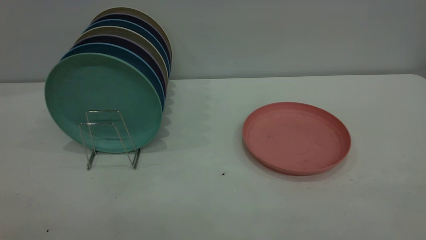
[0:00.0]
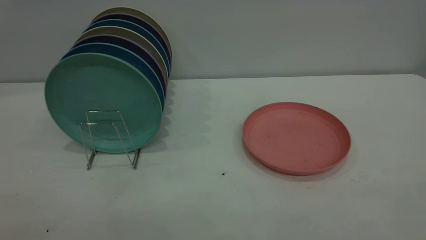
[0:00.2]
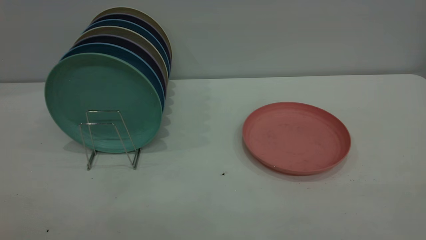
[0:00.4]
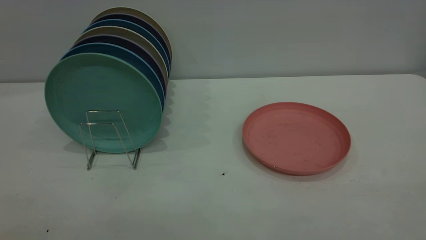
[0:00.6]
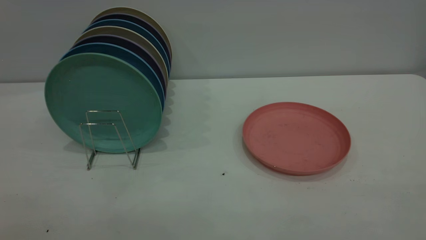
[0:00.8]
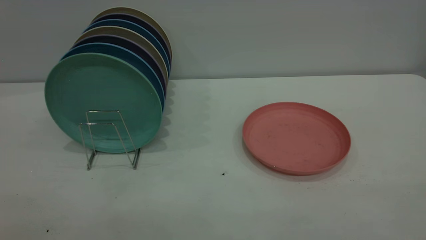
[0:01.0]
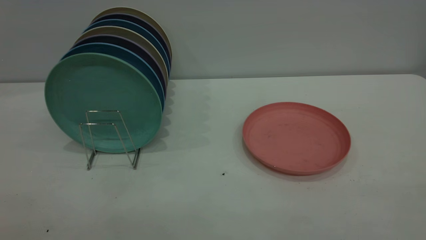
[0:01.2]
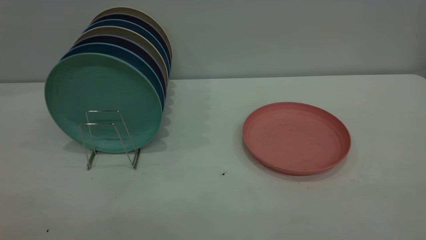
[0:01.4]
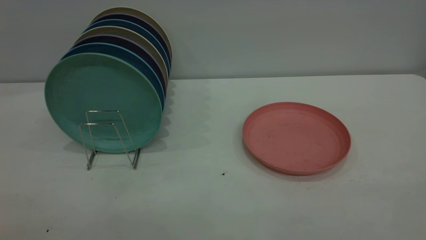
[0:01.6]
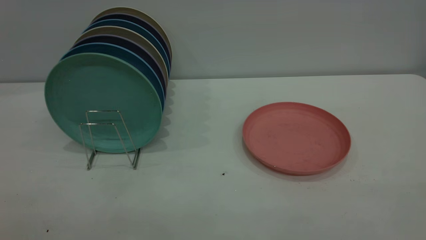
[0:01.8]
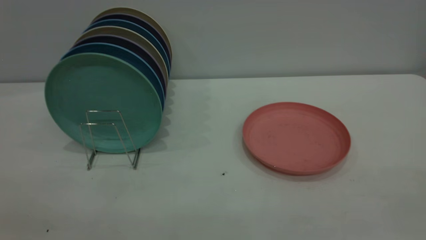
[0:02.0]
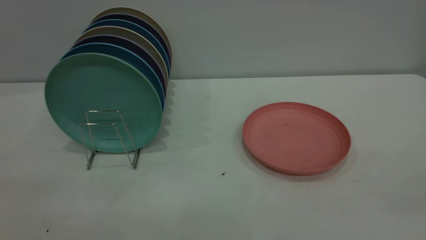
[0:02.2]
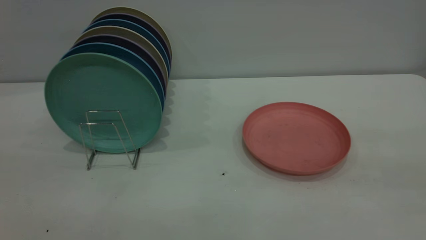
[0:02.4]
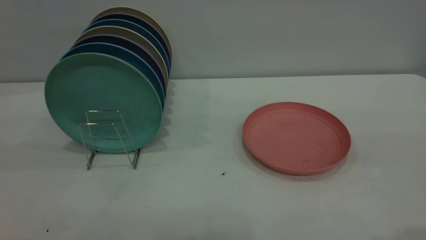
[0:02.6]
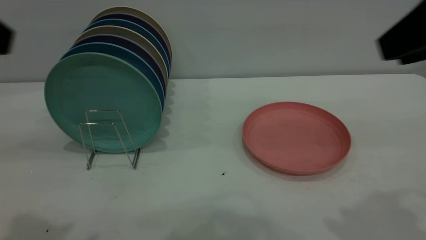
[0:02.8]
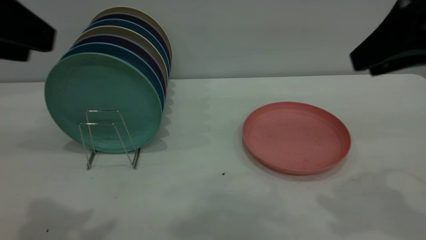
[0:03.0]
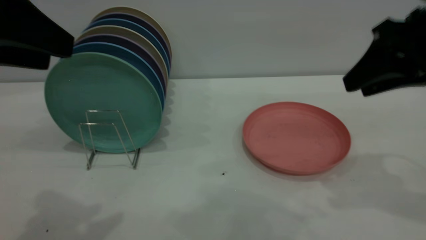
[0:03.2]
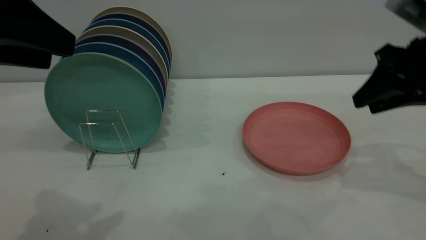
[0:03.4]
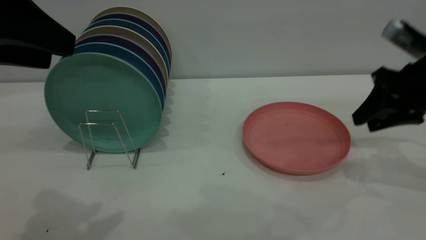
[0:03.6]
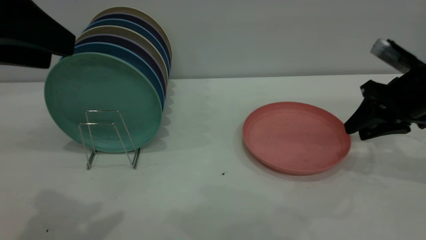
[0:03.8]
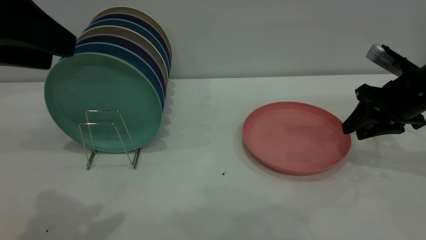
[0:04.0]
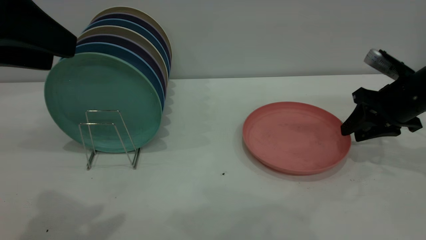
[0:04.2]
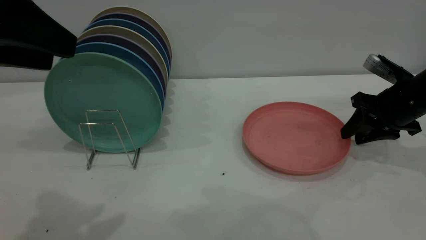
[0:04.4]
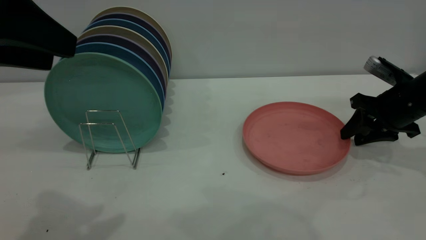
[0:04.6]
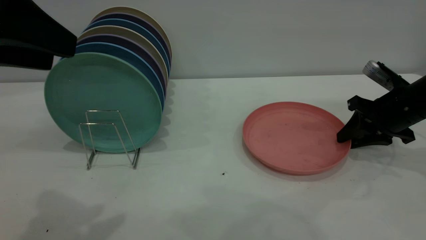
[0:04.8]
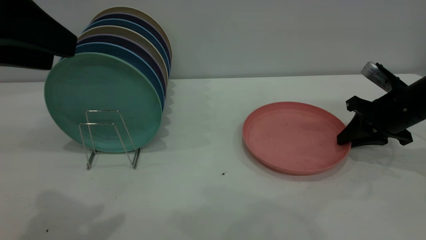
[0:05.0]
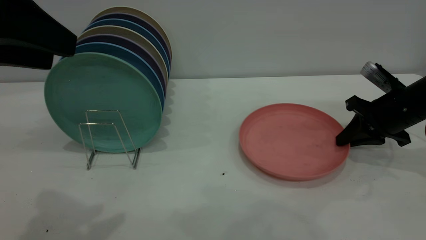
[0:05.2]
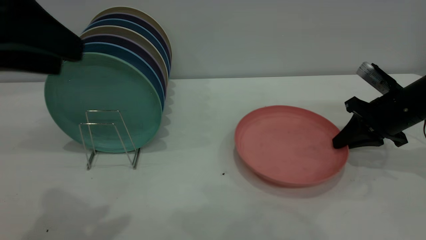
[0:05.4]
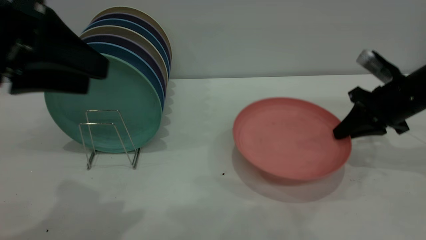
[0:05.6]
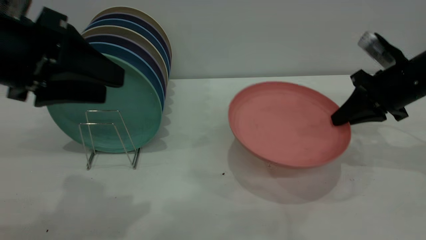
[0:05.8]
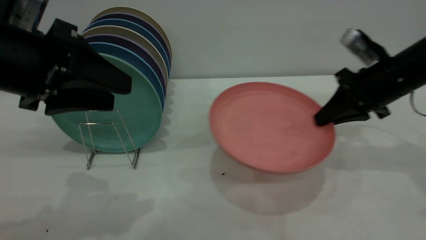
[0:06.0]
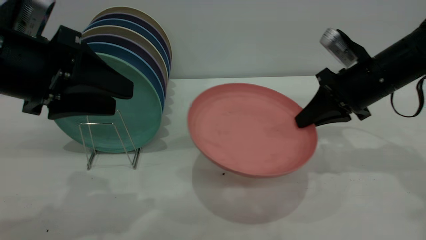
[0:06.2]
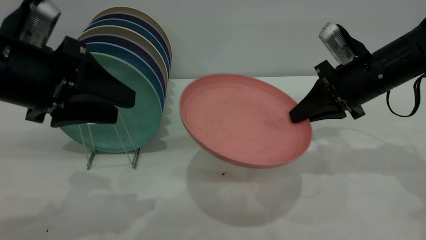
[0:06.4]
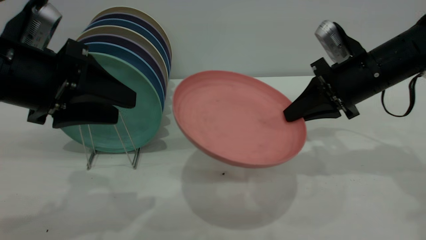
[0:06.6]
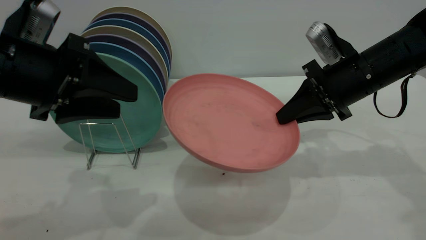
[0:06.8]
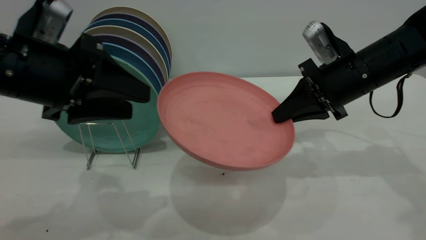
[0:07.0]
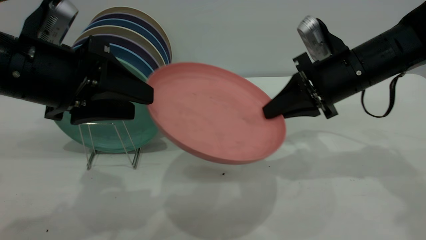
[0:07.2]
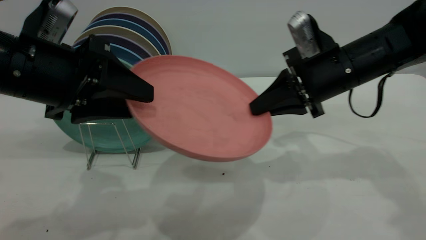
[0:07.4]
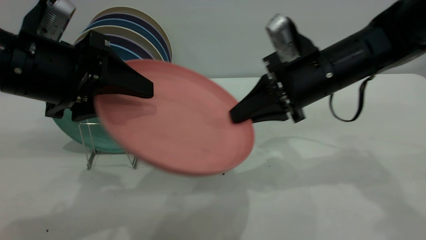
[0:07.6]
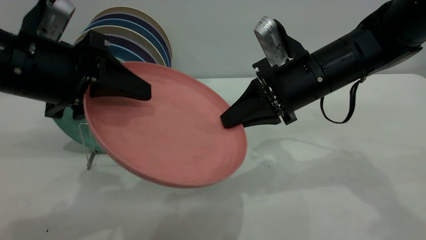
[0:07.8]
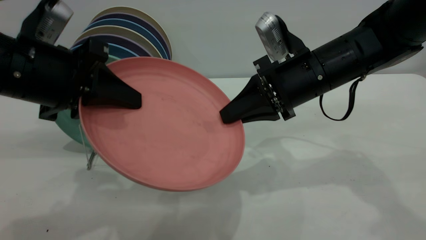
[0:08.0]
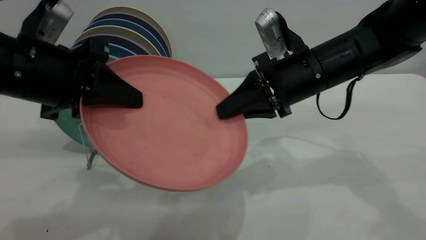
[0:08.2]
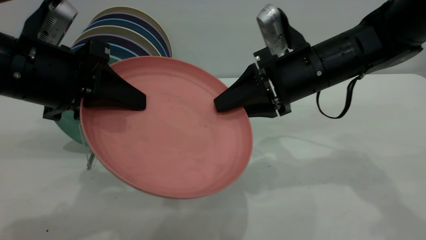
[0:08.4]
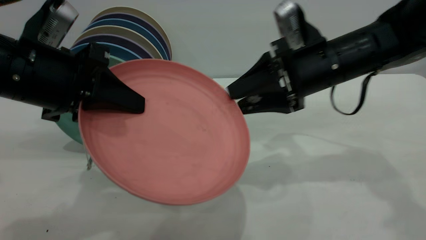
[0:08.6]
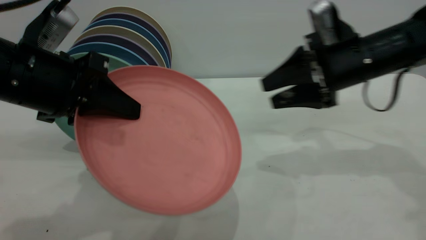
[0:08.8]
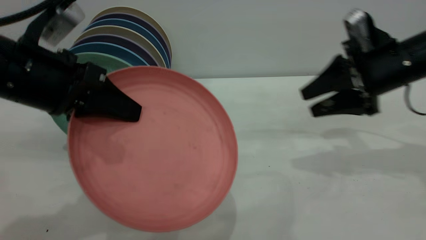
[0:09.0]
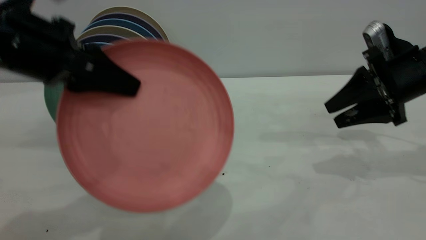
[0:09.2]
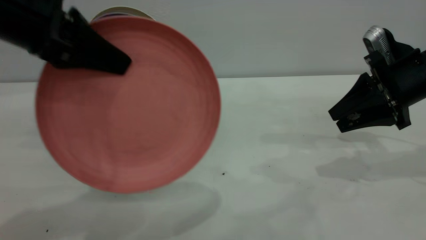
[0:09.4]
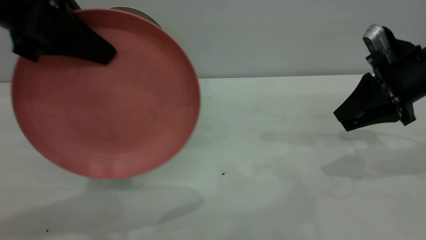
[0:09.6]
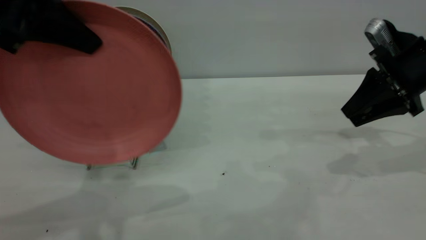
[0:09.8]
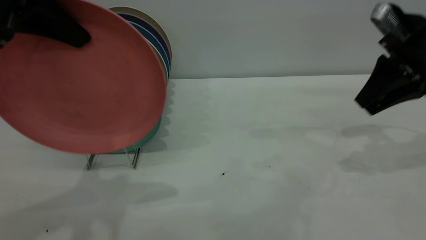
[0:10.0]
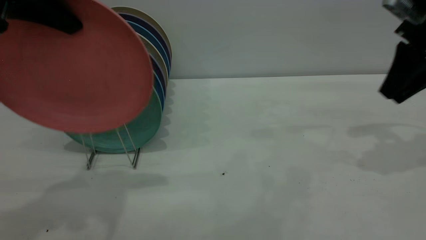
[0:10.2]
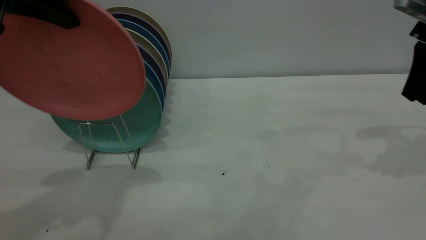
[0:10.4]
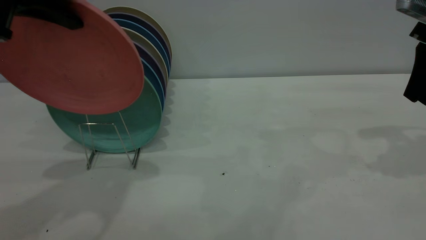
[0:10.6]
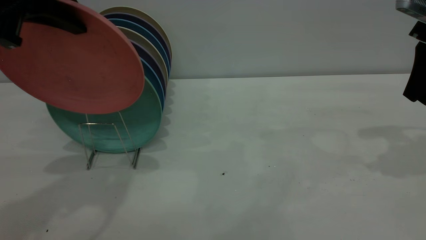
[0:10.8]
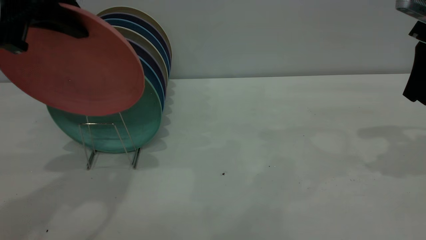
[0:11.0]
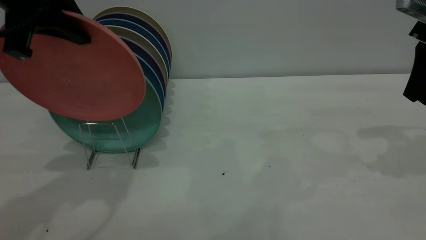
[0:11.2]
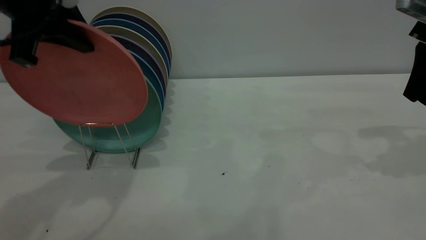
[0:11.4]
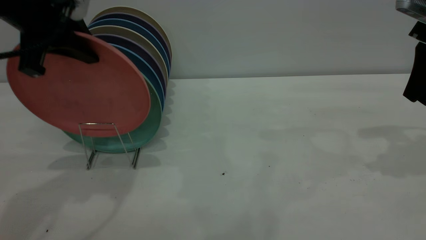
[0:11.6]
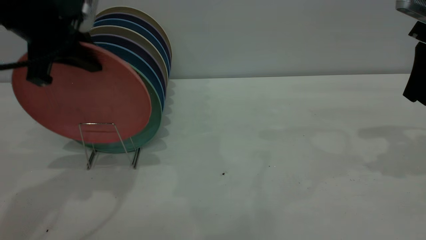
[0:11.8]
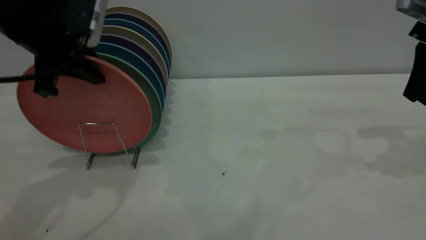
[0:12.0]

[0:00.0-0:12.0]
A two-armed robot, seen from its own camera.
Task of the whole recording: the right gripper grasp the pink plate, the right gripper pass the pink plate to the left gripper, and the left gripper place the pink plate on the plate rack.
Step, 0:00.0 to 0:05.6: Pick up the plate with the right gripper.
Step, 0:05.8 to 0:09.0: Pass the plate from the right gripper to the left gripper.
0:00.0 to 0:01.6: Both grippers stay put.
0:01.6 to 0:03.0: Both grippers move forward, approximately 25 cm.
0:03.0 to 0:04.4: The right gripper shifts approximately 25 cm downward and forward.
0:04.4 to 0:06.0: The right gripper heads to the left, covering some 5 cm, and closes its fingers. Meanwhile the left gripper travels downward by roughly 10 cm.
0:06.0 to 0:07.6: The right gripper is displaced to the left by some 10 cm.
0:07.6 to 0:09.0: The left gripper closes, while the right gripper heads to the right, covering roughly 15 cm, and opens its fingers.
0:09.0 to 0:10.4: The left gripper goes approximately 15 cm upward; the right gripper is displaced upward and to the right by about 10 cm, and closes up.
0:10.4 to 0:12.0: The left gripper moves downward and forward, some 10 cm.

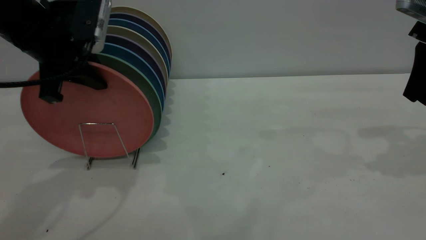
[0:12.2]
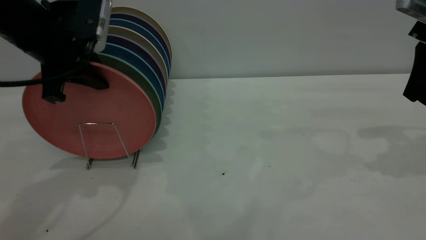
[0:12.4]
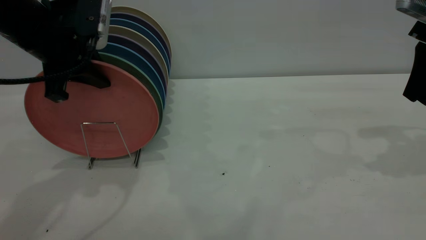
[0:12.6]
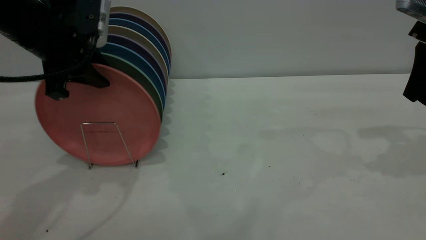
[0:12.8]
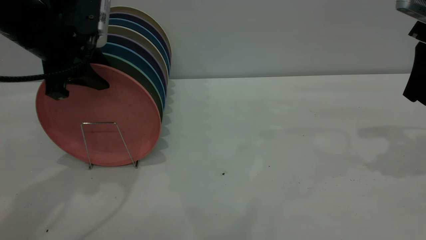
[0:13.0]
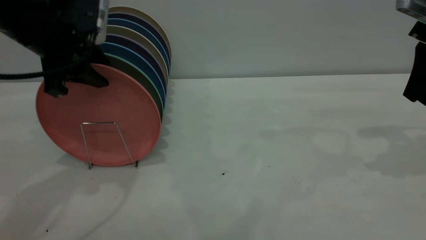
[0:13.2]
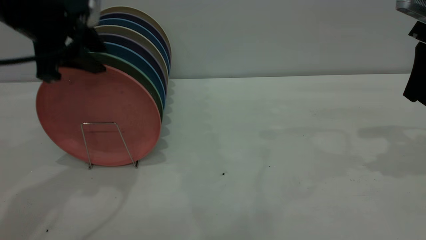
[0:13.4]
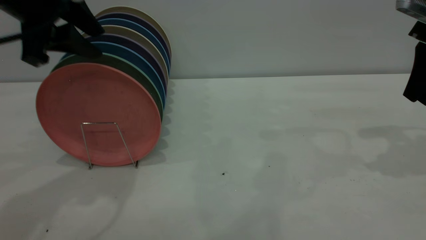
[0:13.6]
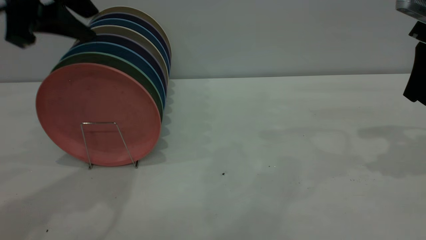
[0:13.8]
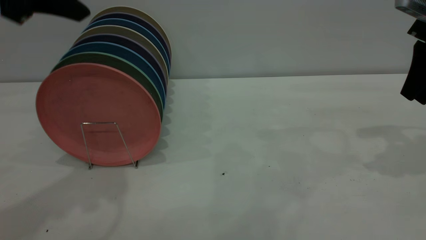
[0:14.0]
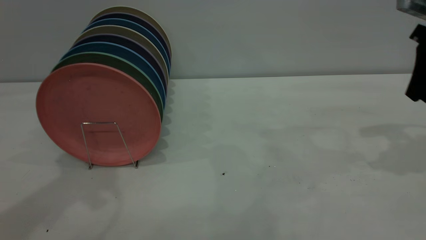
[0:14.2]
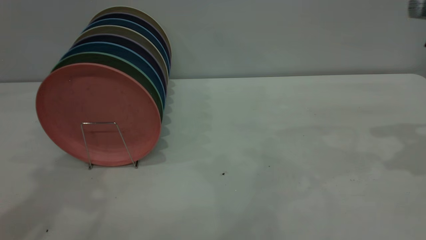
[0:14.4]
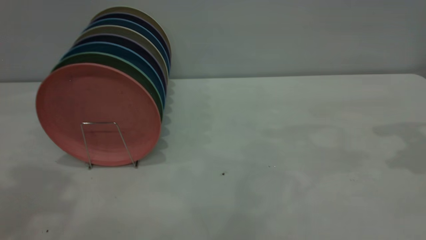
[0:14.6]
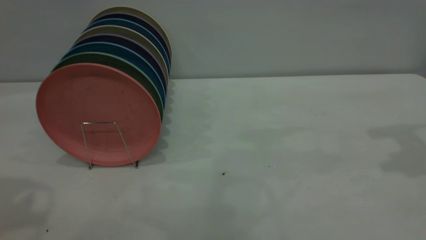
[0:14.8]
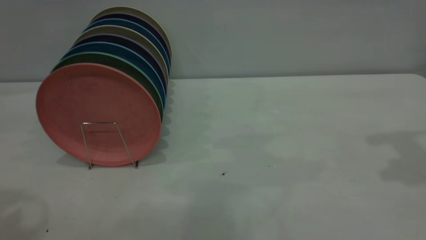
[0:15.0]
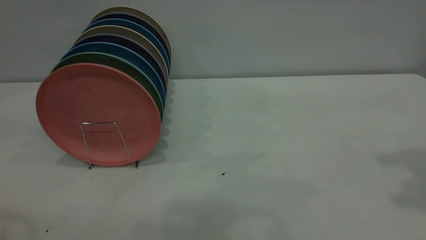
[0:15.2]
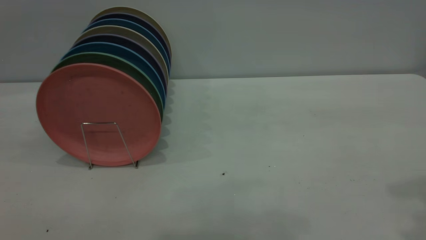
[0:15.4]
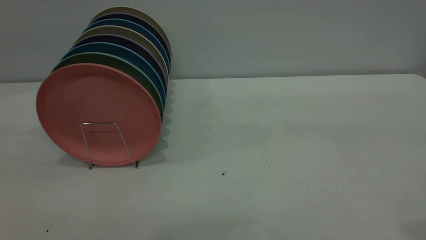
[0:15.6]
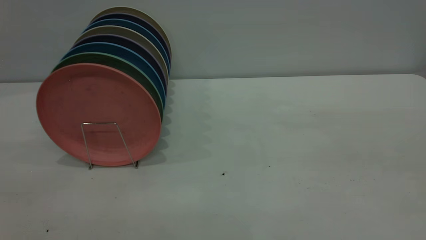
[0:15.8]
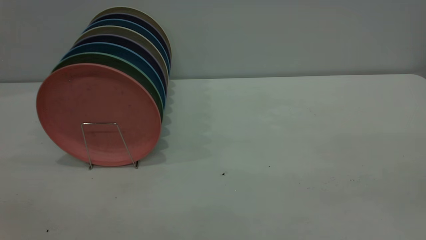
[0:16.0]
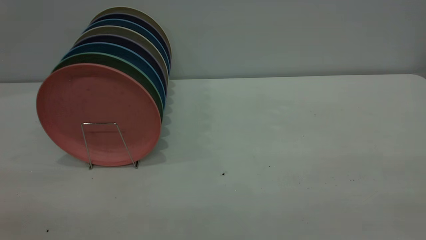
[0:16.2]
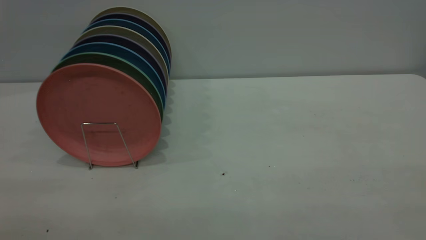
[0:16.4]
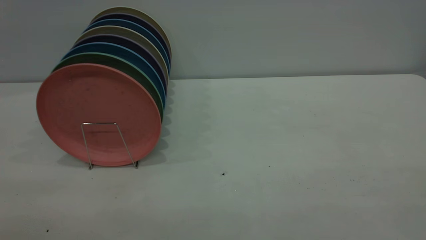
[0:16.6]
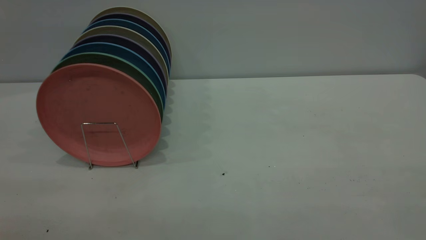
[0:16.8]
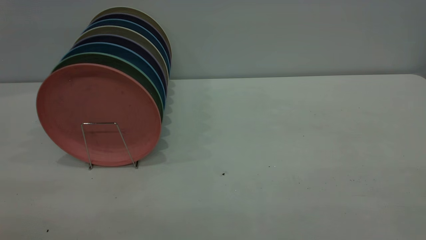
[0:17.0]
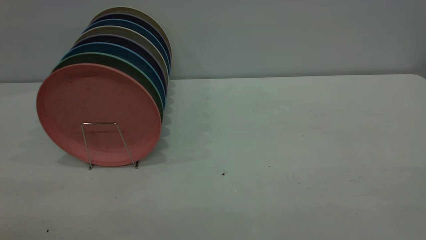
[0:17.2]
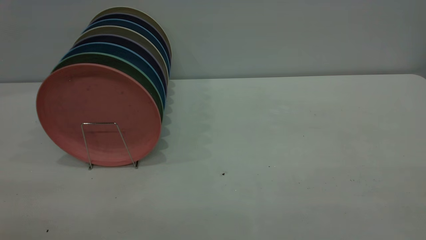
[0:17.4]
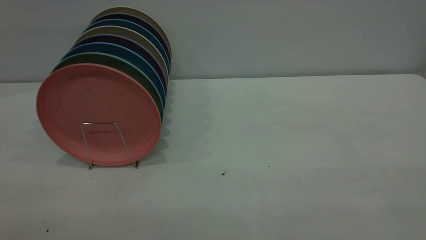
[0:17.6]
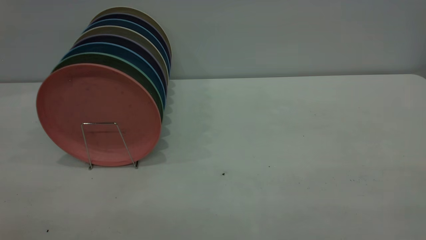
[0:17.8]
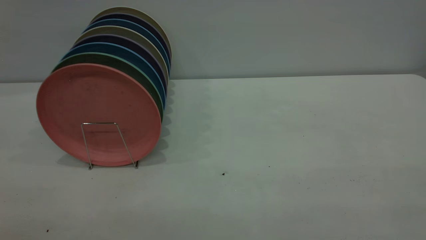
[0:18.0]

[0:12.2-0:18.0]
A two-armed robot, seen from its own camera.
Task of the whole recording: the right gripper grasp the pink plate, the right gripper pass the pink plate to the left gripper, and the left gripper place the pink plate on the plate rack.
0:12.2 to 0:13.6: The left gripper shifts approximately 5 cm upward, and opens.
0:13.6 to 0:15.0: The right gripper moves upward, approximately 15 cm, and opens up. Meanwhile the left gripper moves backward, upward and to the left, about 15 cm.
